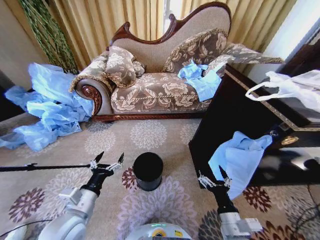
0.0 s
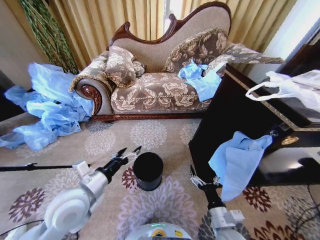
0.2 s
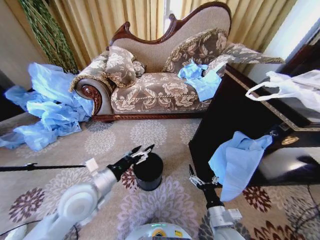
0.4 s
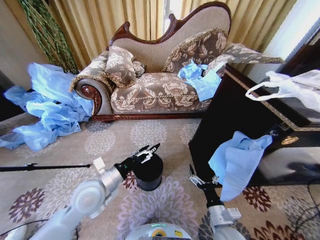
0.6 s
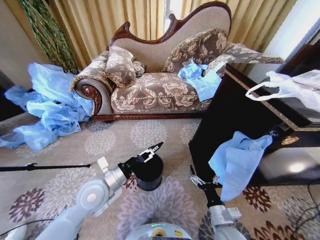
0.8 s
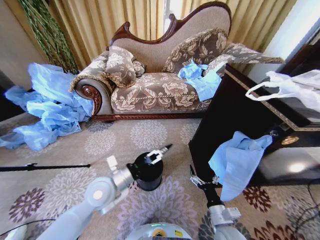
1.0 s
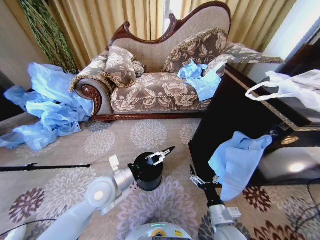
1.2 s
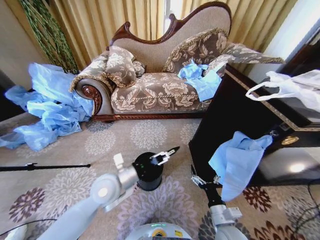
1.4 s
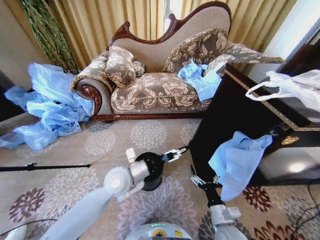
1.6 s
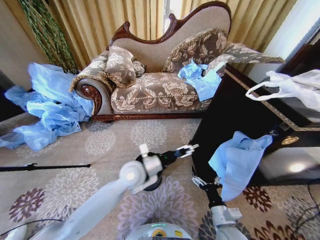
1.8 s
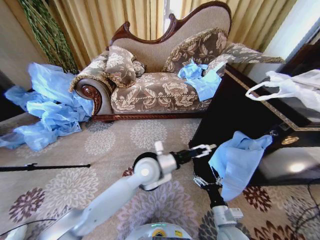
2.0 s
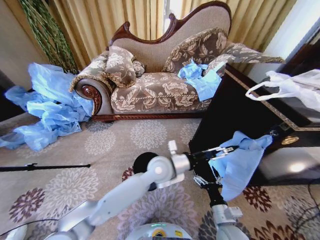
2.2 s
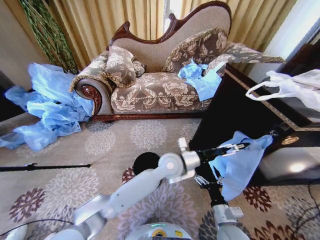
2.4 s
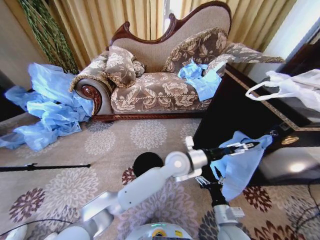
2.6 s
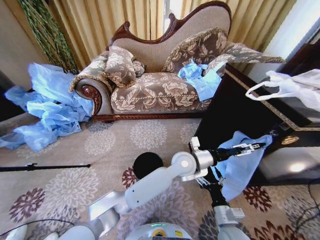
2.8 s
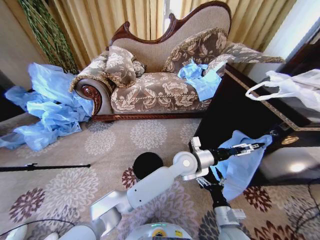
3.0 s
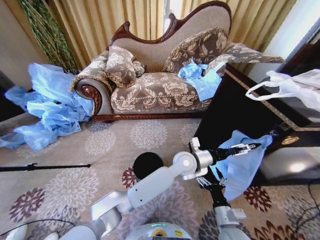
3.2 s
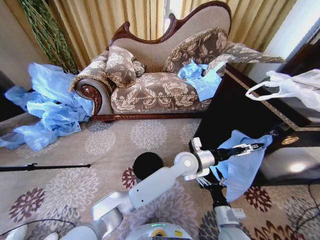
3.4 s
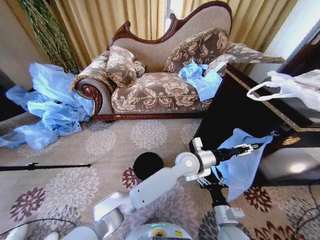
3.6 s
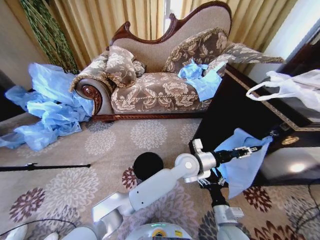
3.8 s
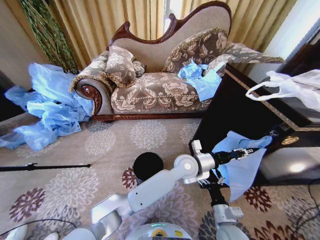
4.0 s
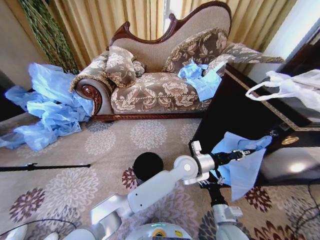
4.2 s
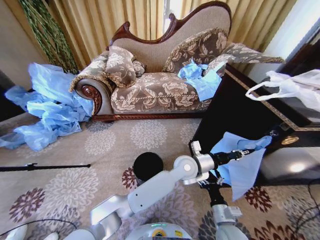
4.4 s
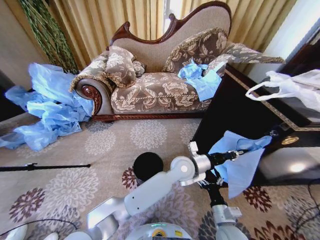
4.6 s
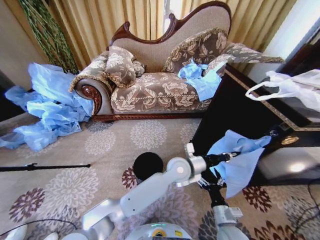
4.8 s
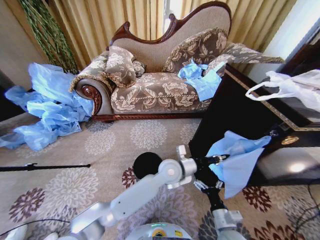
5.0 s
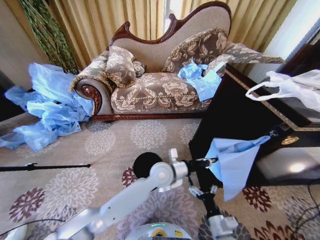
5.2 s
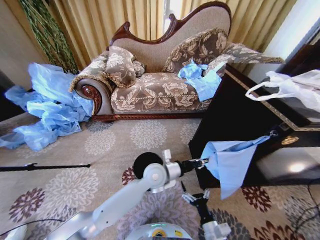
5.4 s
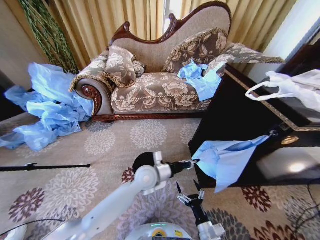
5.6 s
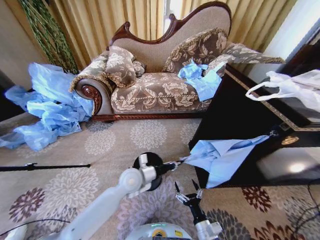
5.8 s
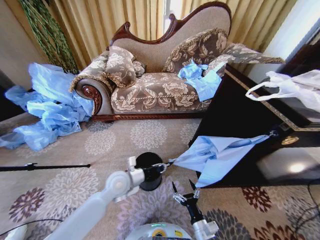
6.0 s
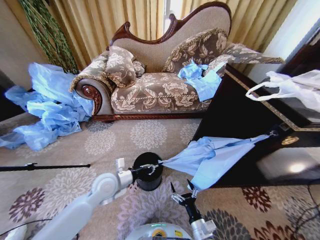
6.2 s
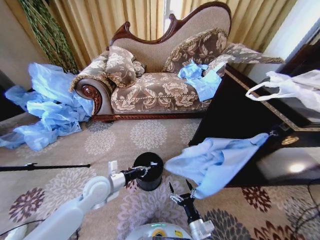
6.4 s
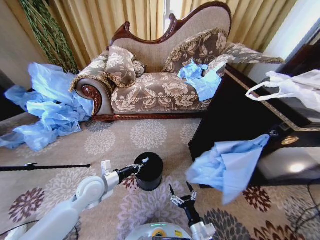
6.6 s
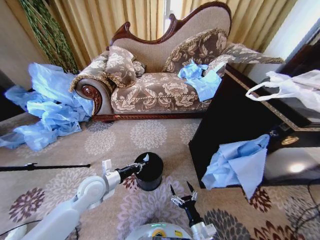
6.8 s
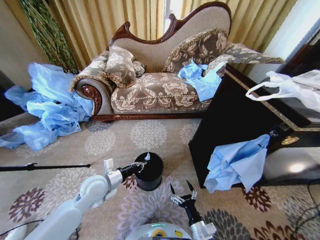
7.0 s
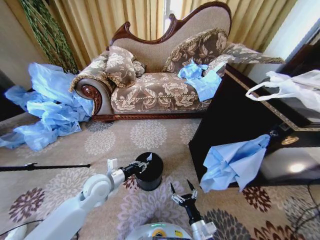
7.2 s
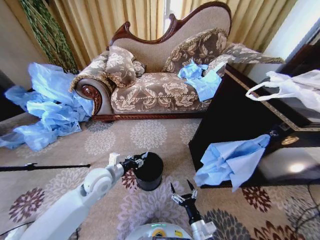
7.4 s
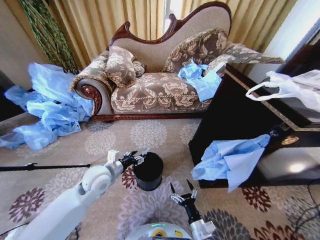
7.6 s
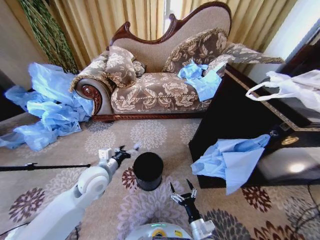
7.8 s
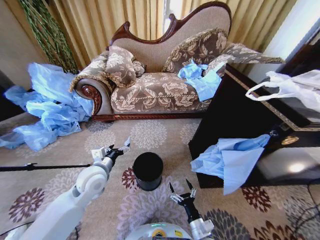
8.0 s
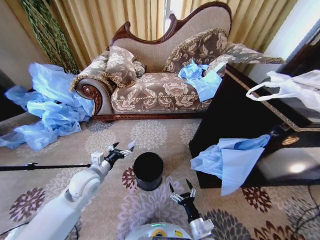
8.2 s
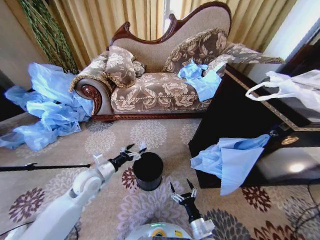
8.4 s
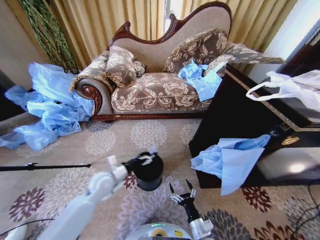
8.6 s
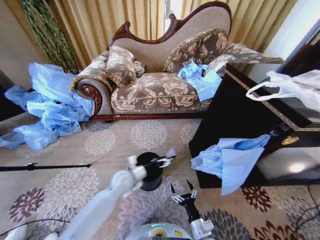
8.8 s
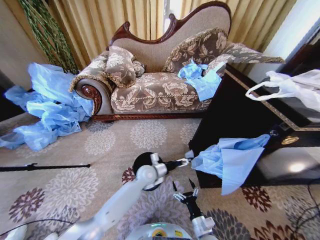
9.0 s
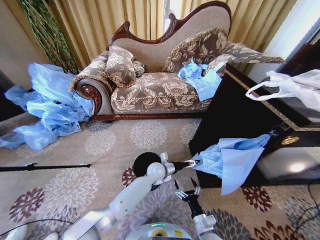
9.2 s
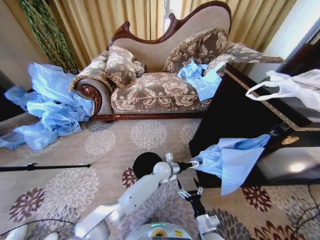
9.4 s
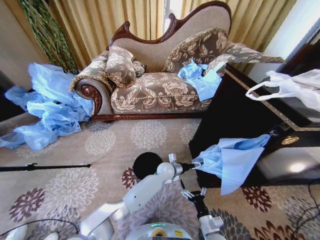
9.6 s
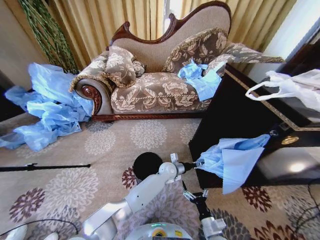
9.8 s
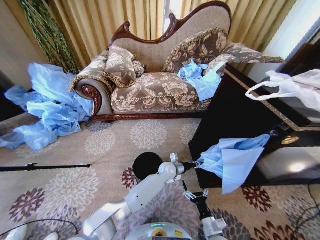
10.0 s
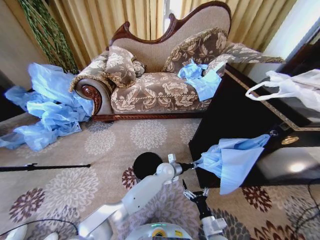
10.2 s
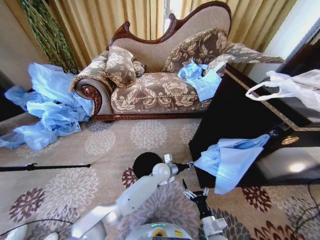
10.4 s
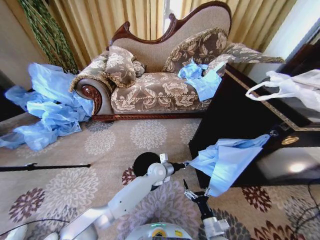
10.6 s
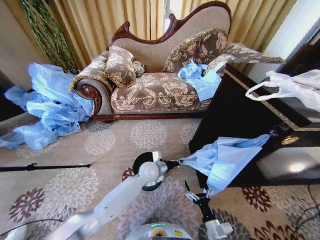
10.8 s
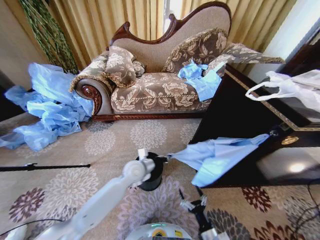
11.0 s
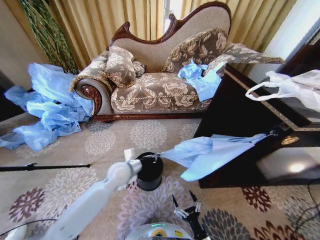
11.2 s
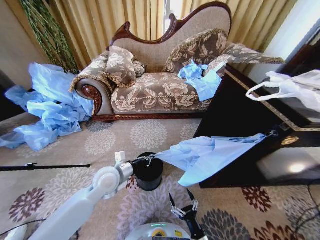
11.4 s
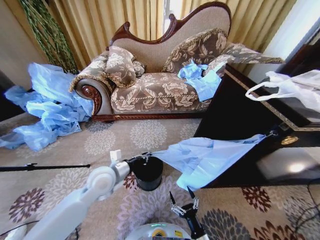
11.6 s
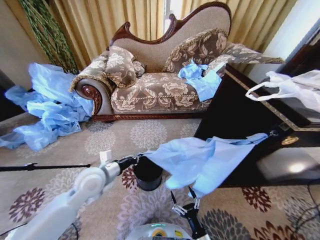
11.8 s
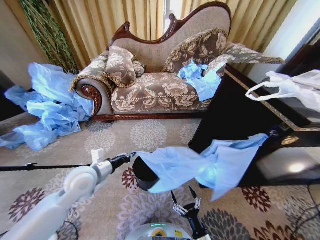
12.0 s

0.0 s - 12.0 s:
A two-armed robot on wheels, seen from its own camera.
Task of the whole recording: Place a garbage bag over the trash bin.
1.6 s - 3.0 s: The left gripper goes about 25 cm to the right.
3.0 s - 4.4 s: The left gripper closes.
4.4 s - 6.0 s: The right gripper heads to the left and downward, covering approximately 10 cm. Meanwhile the left gripper travels to the left by roughly 25 cm.
6.0 s - 7.6 s: The left gripper moves to the left and upward, roughly 10 cm, and opens up.
7.6 s - 9.0 s: The left gripper moves to the right, downward and forward, approximately 20 cm, and opens up.
9.0 s - 10.4 s: The left gripper is displaced to the right by approximately 5 cm, and closes its fingers.
10.4 s - 12.0 s: The right gripper goes some 5 cm backward. The left gripper moves to the left, upward and backward, roughly 35 cm.

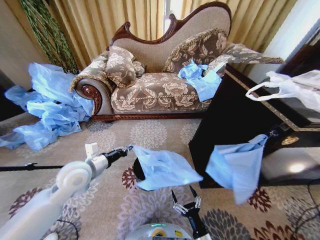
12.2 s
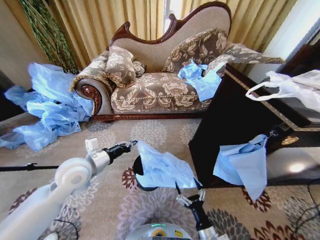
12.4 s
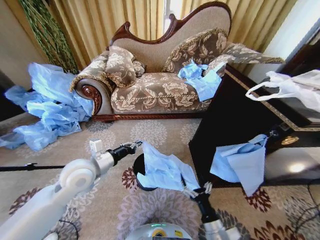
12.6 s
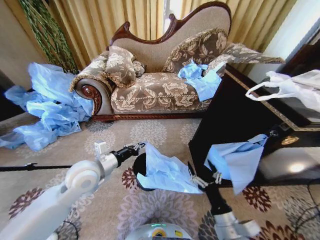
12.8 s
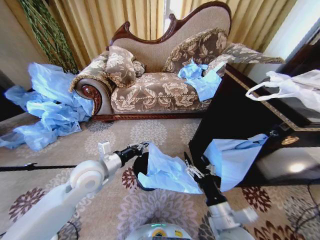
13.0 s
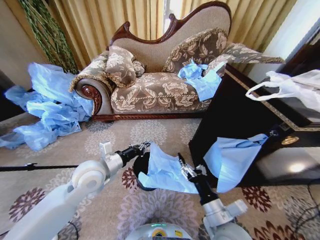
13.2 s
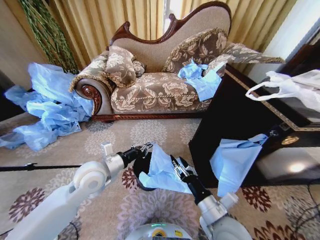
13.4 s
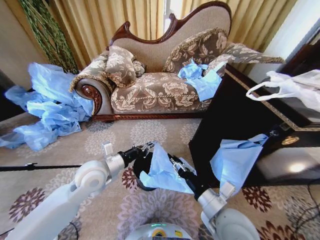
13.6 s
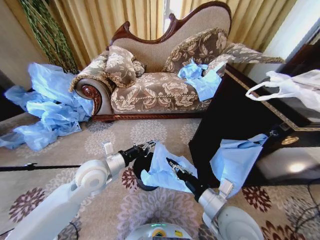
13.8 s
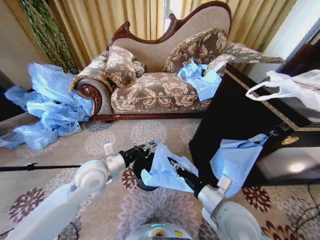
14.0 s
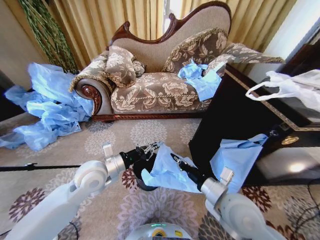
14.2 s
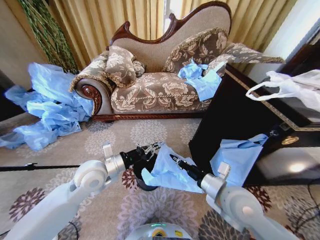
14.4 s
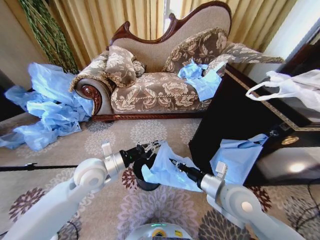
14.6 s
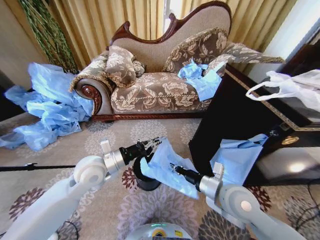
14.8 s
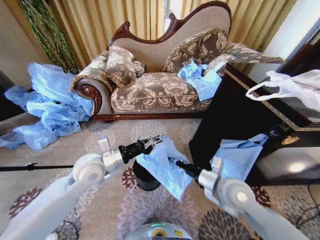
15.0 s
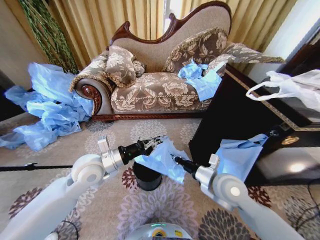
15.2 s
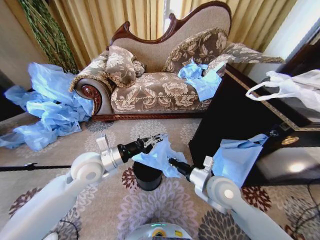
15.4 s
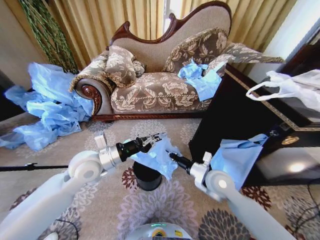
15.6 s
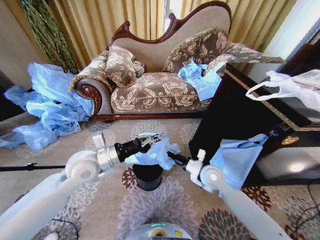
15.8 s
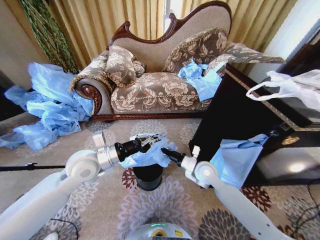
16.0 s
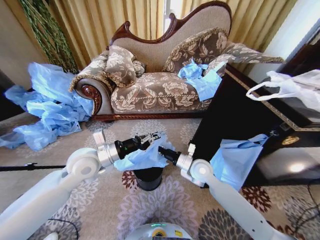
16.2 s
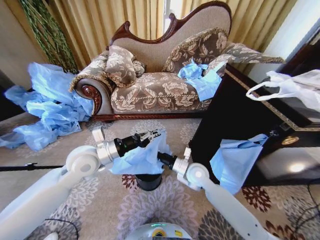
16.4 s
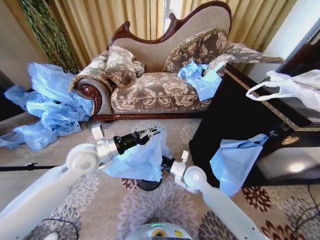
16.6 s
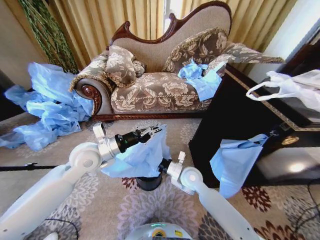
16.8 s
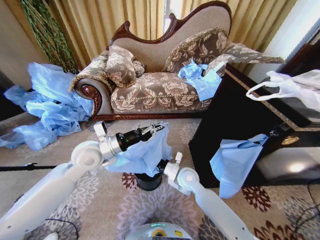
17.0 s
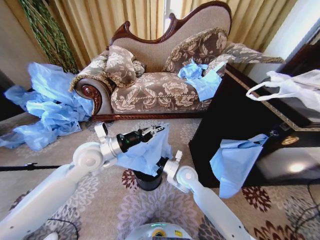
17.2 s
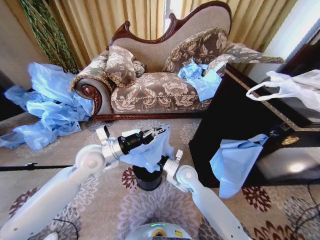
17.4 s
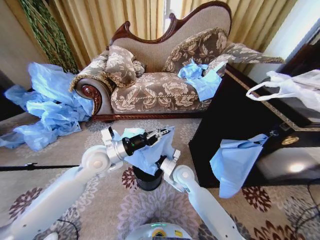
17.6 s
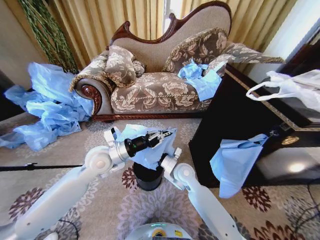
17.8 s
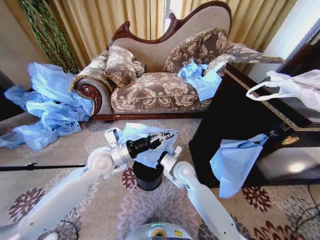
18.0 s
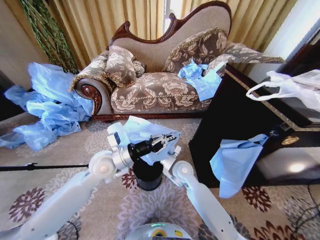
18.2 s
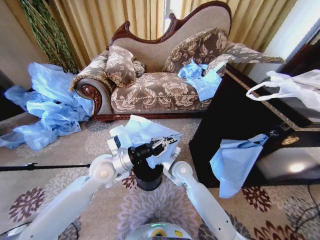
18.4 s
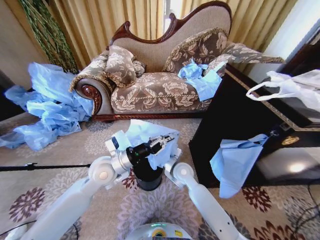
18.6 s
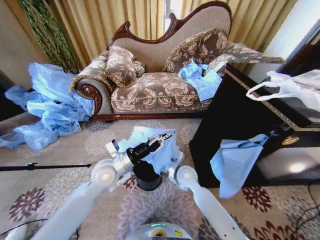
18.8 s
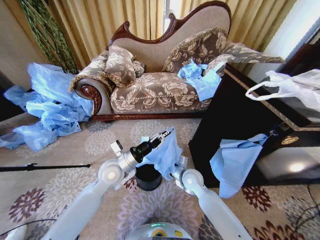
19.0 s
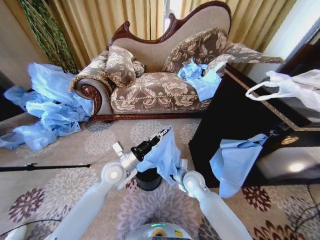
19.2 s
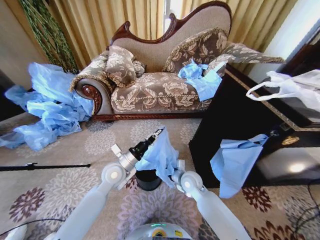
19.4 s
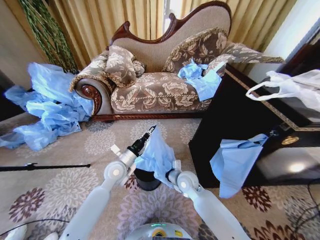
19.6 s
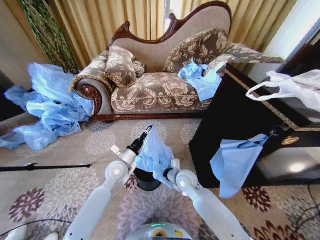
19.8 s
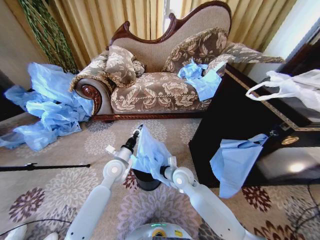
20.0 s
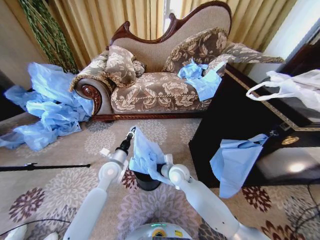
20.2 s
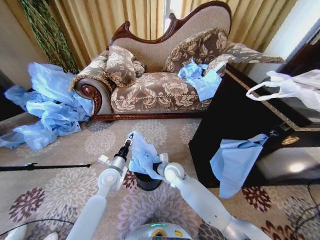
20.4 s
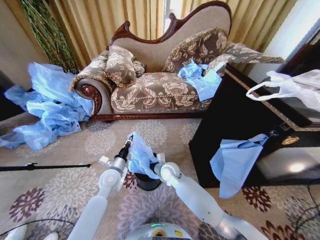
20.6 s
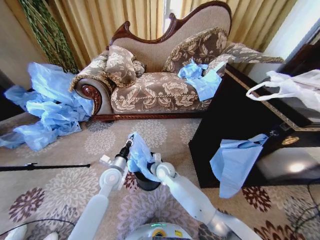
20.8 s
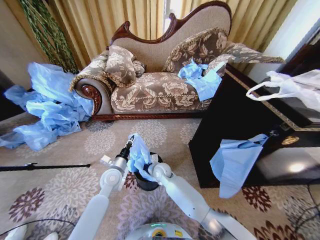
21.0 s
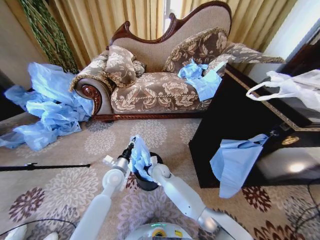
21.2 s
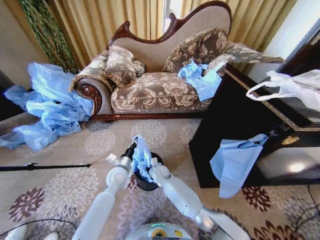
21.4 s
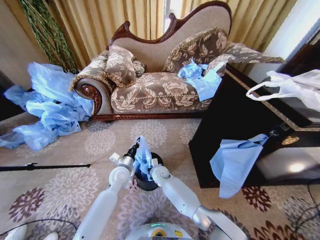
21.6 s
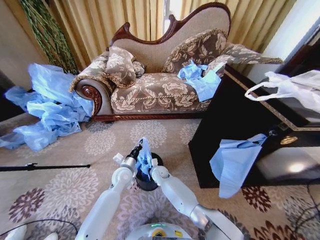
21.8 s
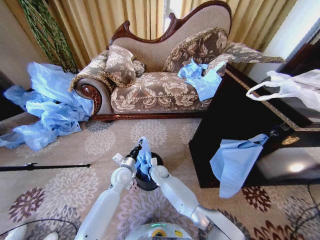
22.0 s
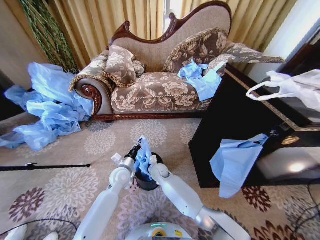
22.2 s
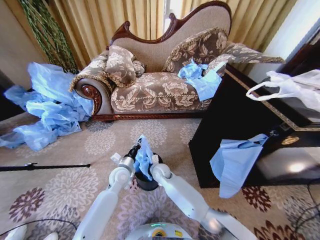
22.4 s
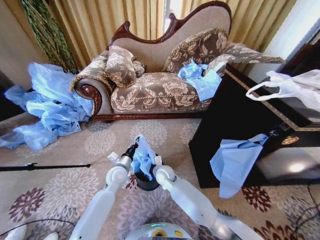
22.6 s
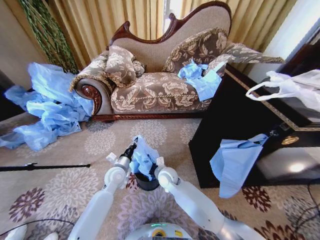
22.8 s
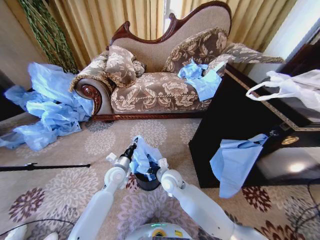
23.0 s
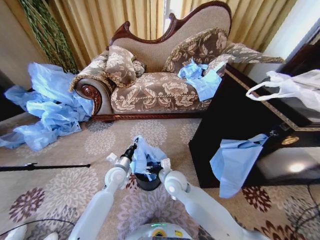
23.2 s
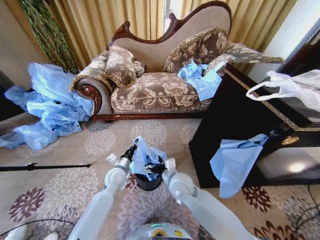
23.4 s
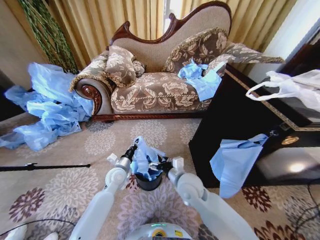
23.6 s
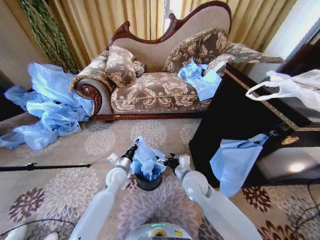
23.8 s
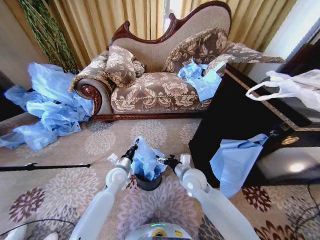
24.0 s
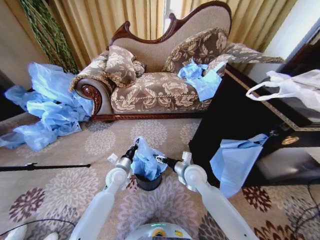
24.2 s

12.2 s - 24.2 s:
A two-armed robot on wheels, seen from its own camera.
Task of the whole recording: Place a garbage bag over the trash bin.
12.2 s - 13.8 s: The left gripper moves to the right, approximately 5 cm. The right gripper travels upward and forward by about 25 cm, and closes.
13.8 s - 15.2 s: The right gripper shifts about 10 cm forward.
15.2 s - 16.6 s: The right gripper is displaced to the left, downward and forward by some 15 cm.
16.6 s - 18.2 s: The left gripper shifts by about 5 cm. The right gripper ends up approximately 5 cm from where it was.
18.2 s - 19.8 s: The left gripper is displaced downward by some 10 cm, while the right gripper ends up about 5 cm from where it was.
19.8 s - 21.2 s: The left gripper travels downward by some 5 cm. The right gripper heads to the left, downward and forward, covering approximately 15 cm.
21.2 s - 22.6 s: The right gripper opens up.
22.6 s - 24.2 s: The right gripper travels to the right and upward by approximately 15 cm, and opens its fingers.
